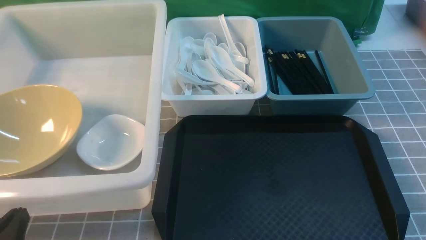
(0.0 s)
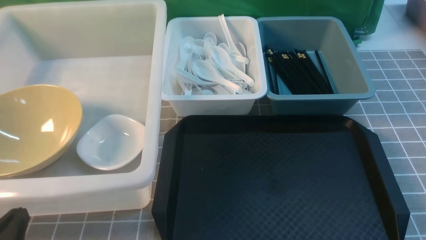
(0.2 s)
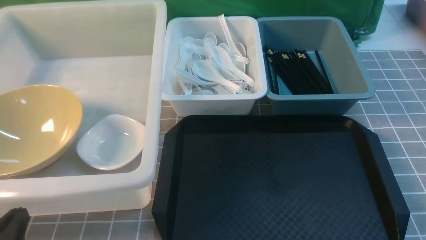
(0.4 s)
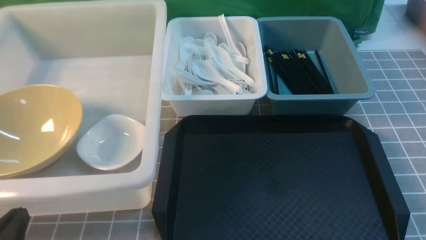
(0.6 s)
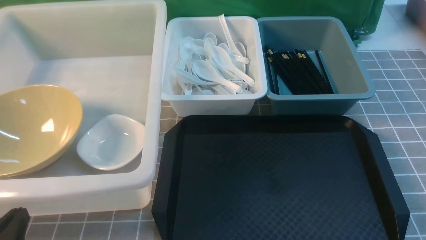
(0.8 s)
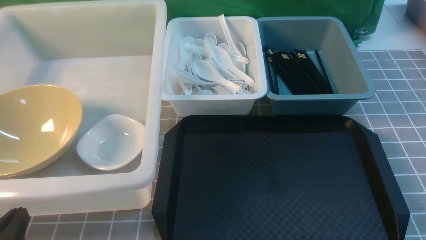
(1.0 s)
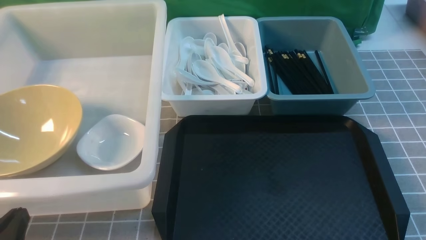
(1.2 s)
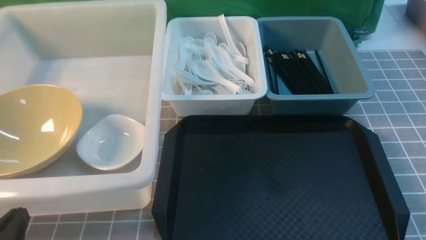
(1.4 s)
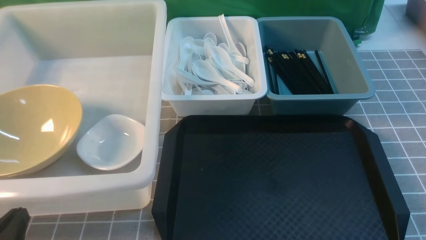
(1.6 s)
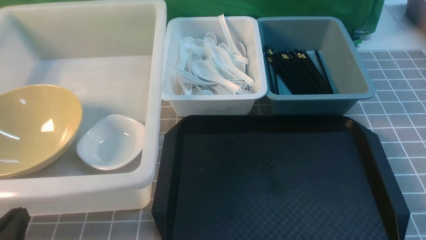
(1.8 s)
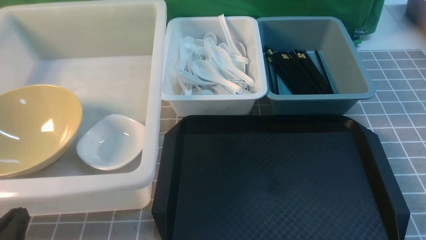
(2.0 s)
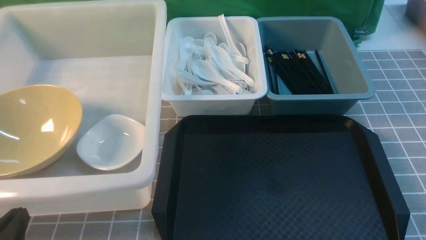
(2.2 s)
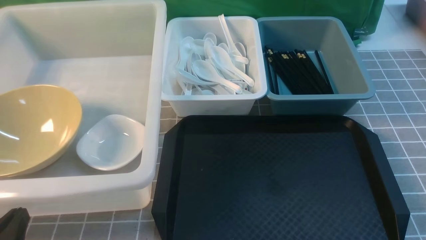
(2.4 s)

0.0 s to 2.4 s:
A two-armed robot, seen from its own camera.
Task of the whole recording: on grey table put chopsticks spoon bowls plates into blue grey white boxes.
0.0 to 2.4 s: Both grippers stay about where they are.
